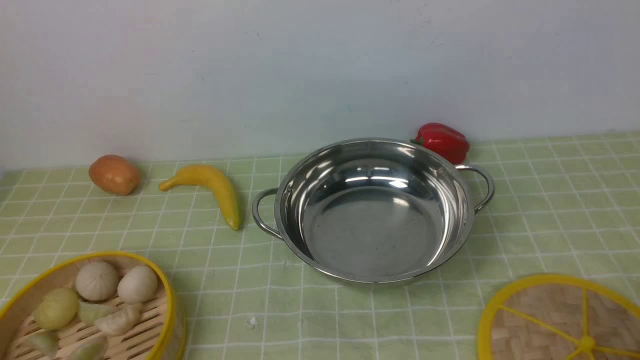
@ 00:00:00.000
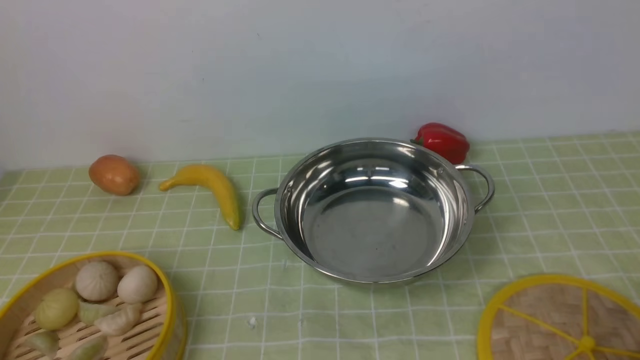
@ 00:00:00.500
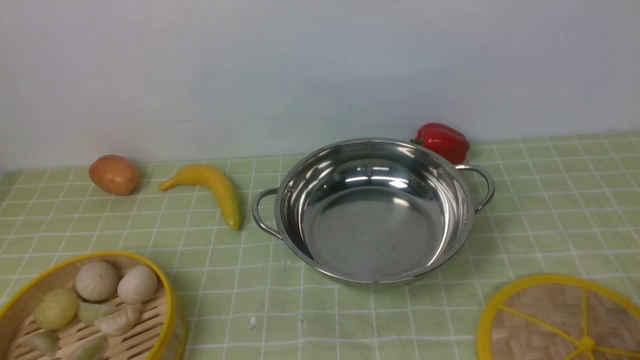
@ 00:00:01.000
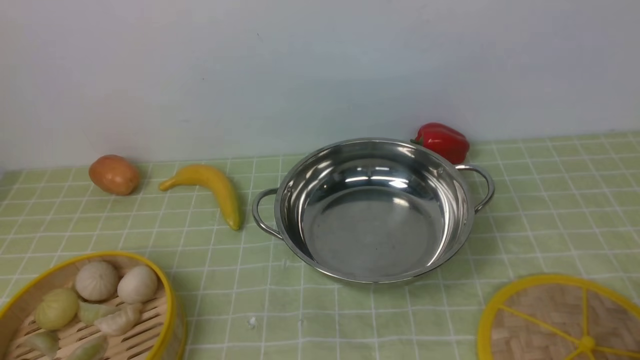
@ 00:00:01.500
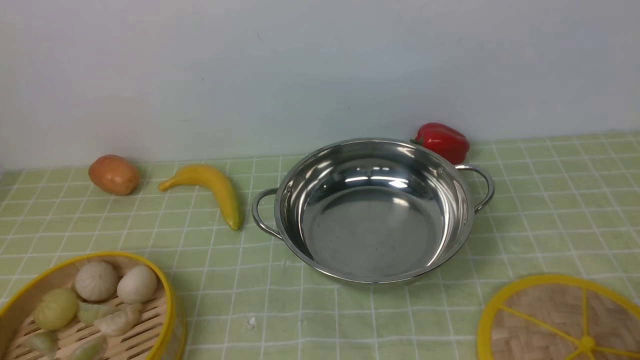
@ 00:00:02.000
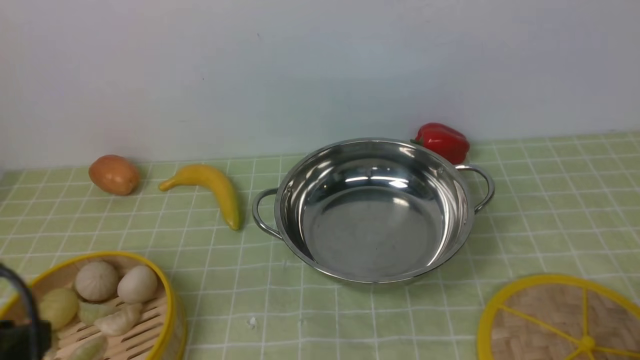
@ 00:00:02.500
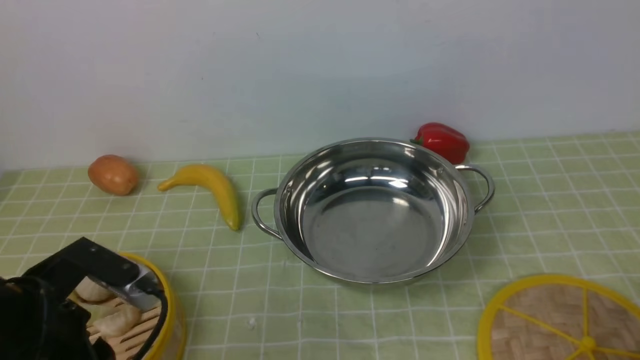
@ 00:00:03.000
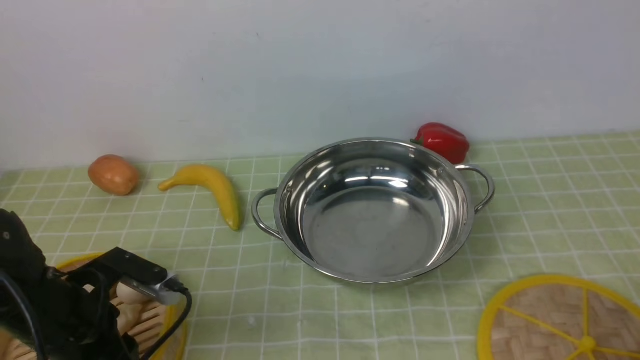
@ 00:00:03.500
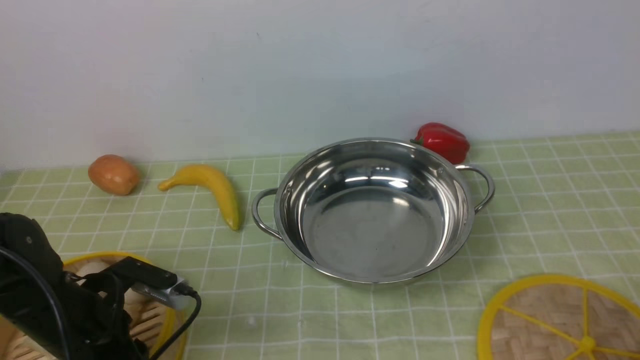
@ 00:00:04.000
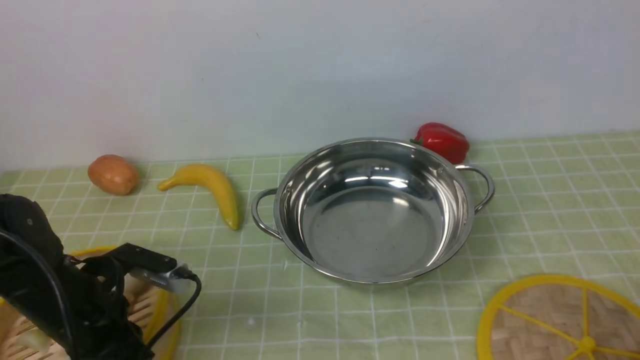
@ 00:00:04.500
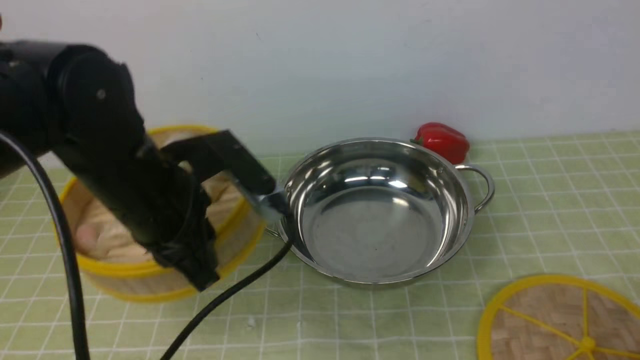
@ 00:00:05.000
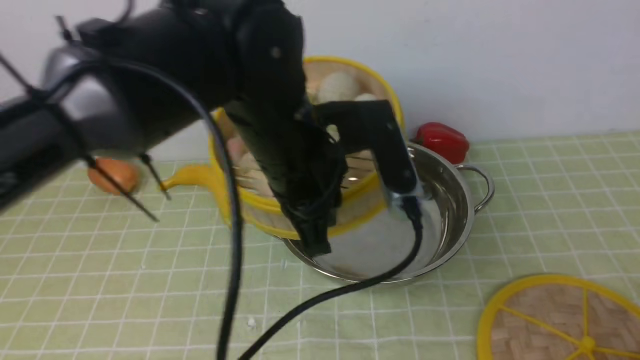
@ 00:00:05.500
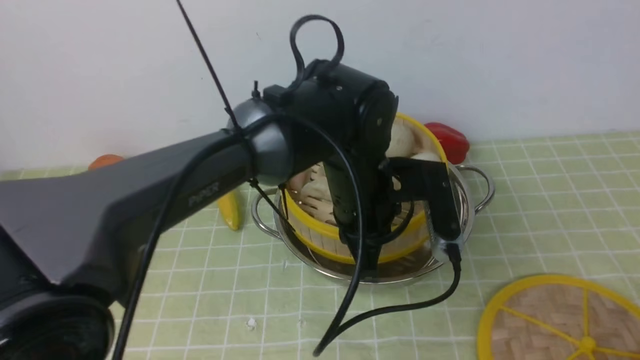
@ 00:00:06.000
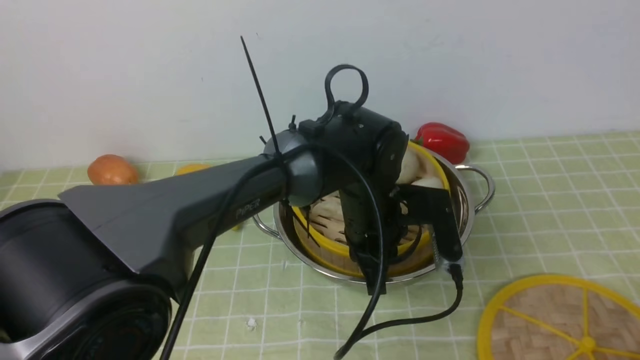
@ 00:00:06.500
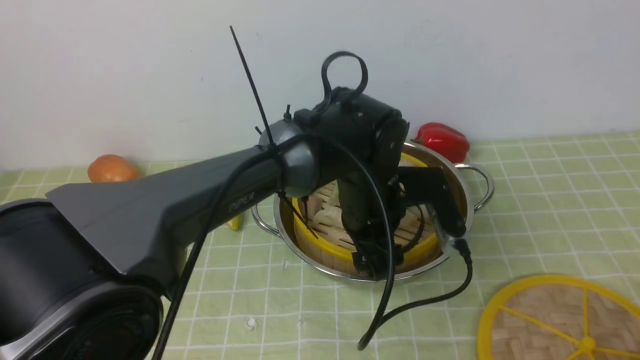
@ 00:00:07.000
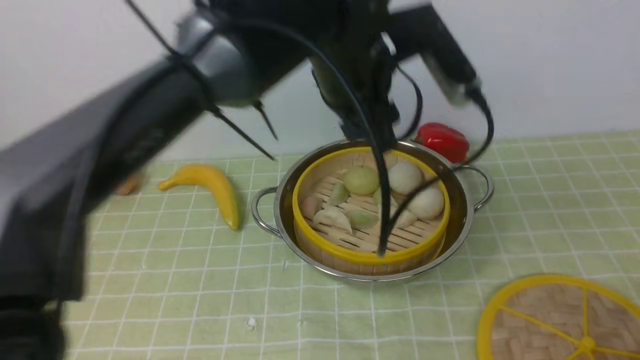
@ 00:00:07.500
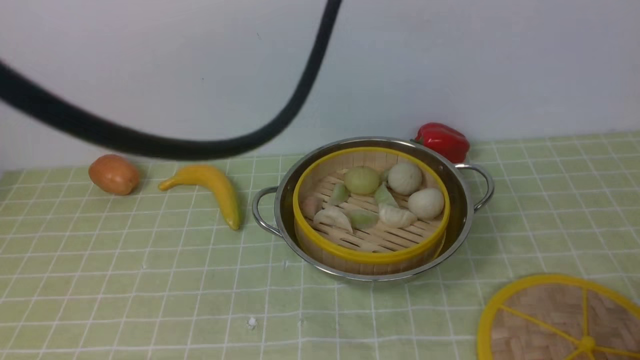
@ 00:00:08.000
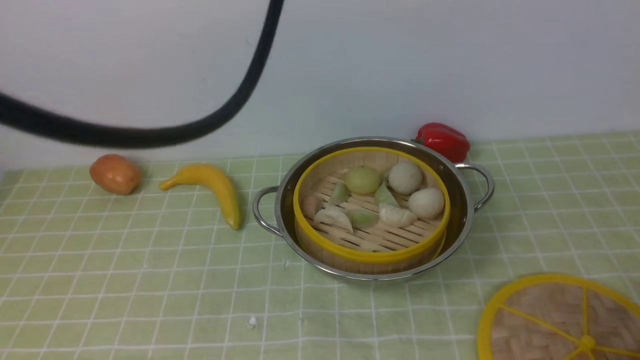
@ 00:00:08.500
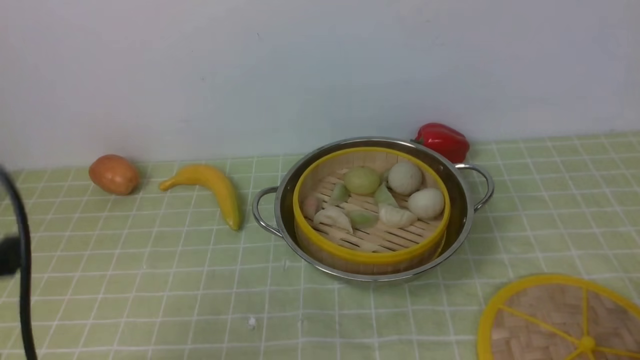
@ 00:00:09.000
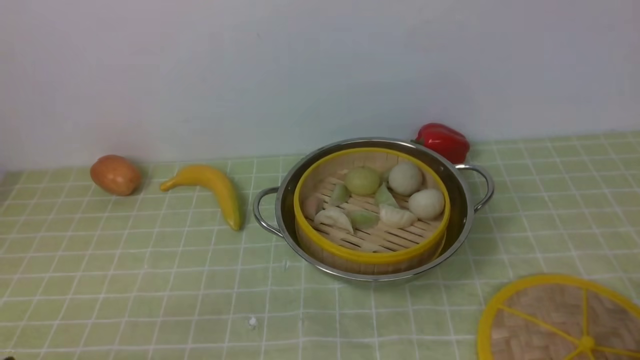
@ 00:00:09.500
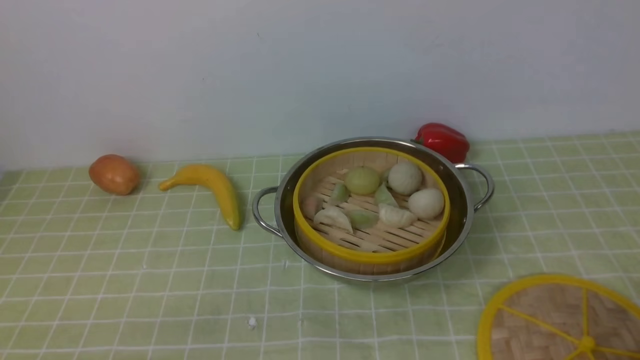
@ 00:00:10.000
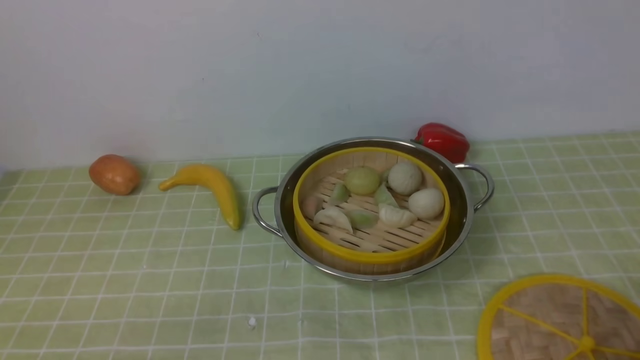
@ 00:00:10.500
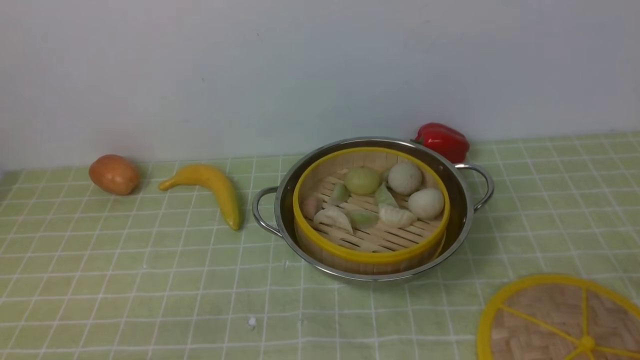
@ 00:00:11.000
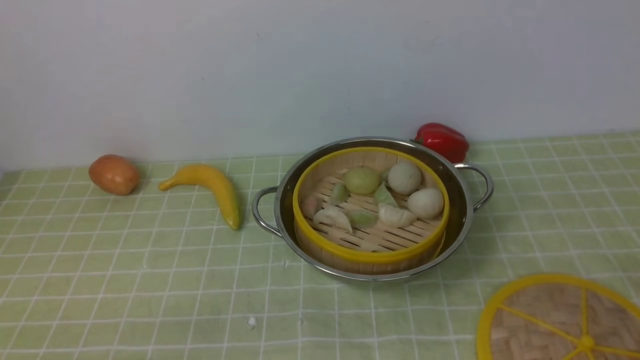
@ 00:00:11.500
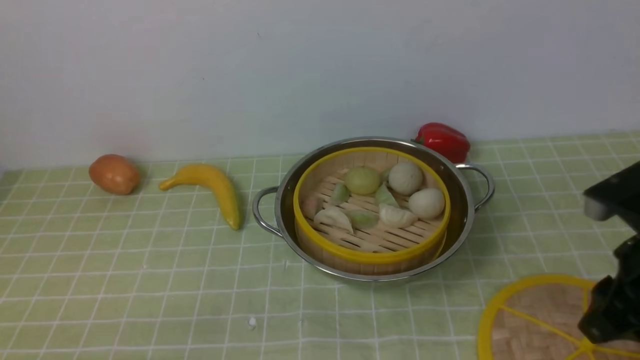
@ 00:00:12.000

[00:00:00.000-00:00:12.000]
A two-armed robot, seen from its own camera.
Task of the whole recording: place the steamer in the pot on the green tablecloth, and put the lid on the steamer.
Step, 00:00:00.000 to 00:00:04.500: use the left arm to lift the steamer closest to it.
Step, 00:00:05.000 to 00:00:07.000: use the left arm to put the steamer into the iron steamer pot in the middle.
00:00:02.000 to 00:00:04.000: The left gripper is displaced forward by approximately 20 cm.
00:00:04.000 to 00:00:06.000: The left gripper travels to the right by some 25 cm, and closes up.
00:00:06.000 to 00:00:08.000: The left gripper moves upward, roughly 25 cm, and opens, then closes again.
00:00:08.000 to 00:00:10.000: The left gripper heads downward, backward and to the left, covering roughly 40 cm.
00:00:10.000 to 00:00:12.000: The right gripper moves forward and upward, about 15 cm.

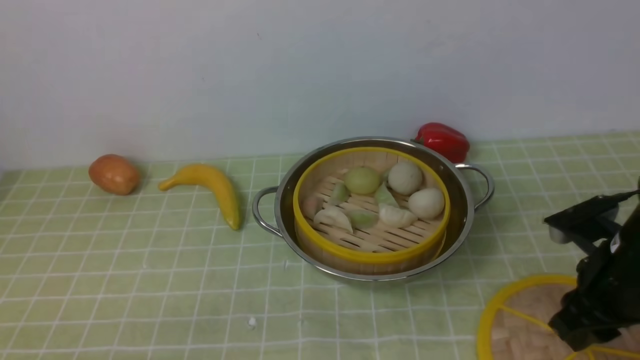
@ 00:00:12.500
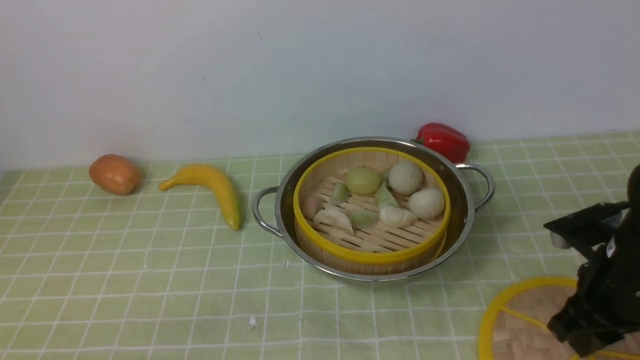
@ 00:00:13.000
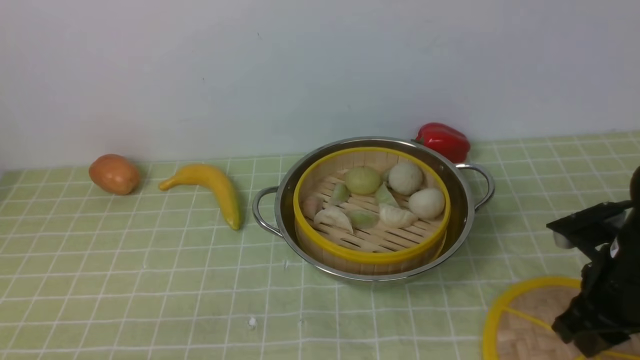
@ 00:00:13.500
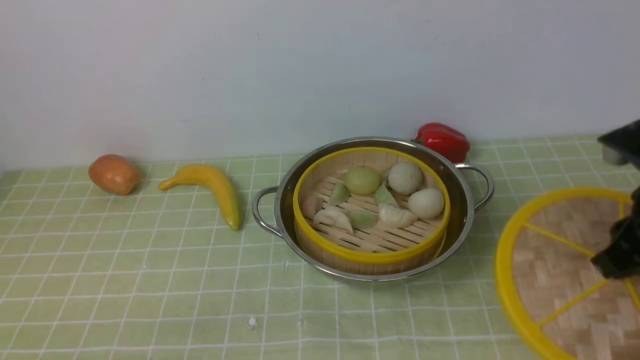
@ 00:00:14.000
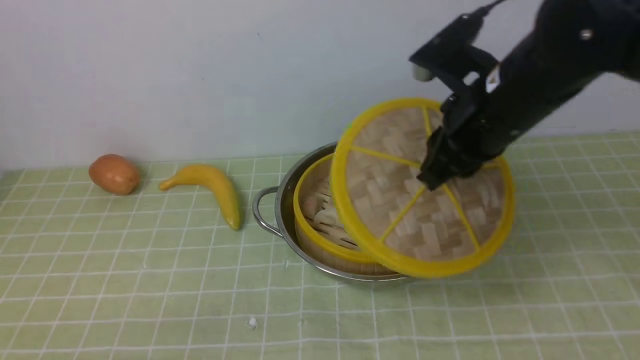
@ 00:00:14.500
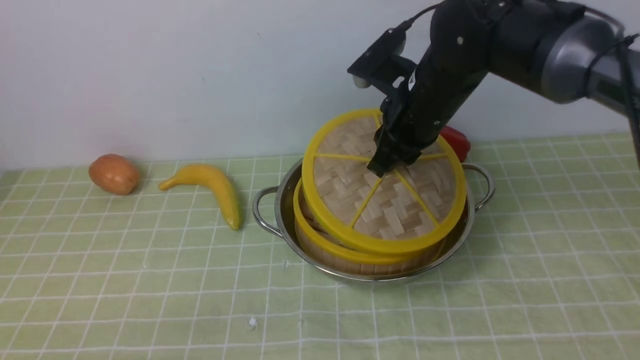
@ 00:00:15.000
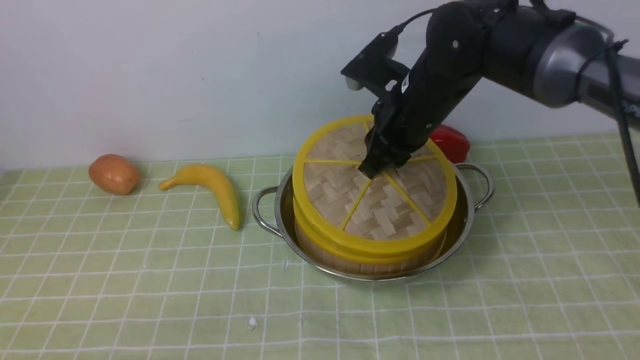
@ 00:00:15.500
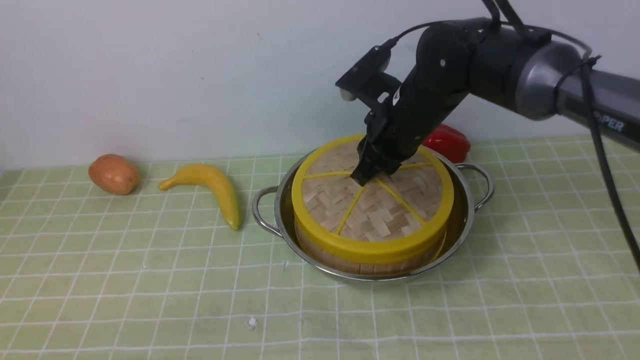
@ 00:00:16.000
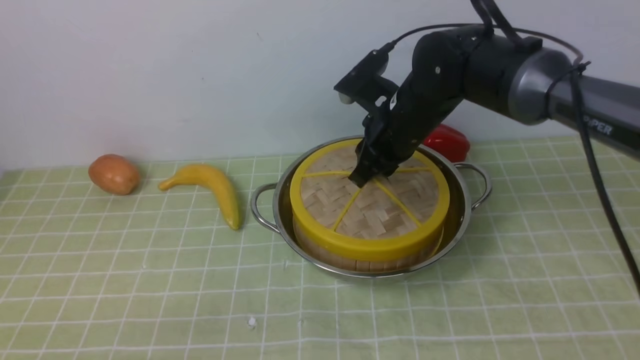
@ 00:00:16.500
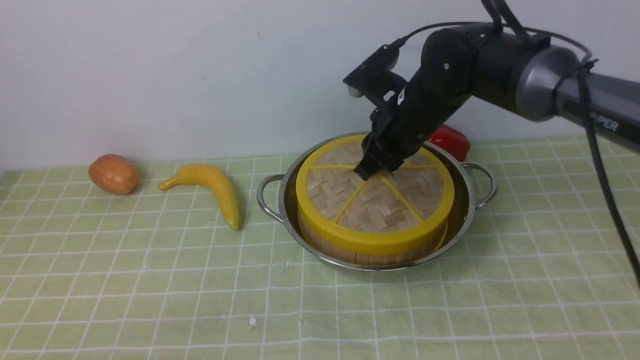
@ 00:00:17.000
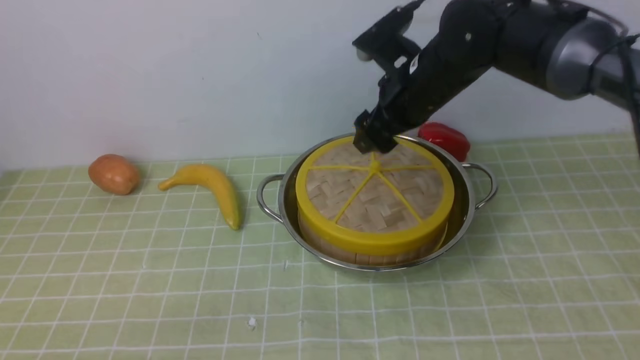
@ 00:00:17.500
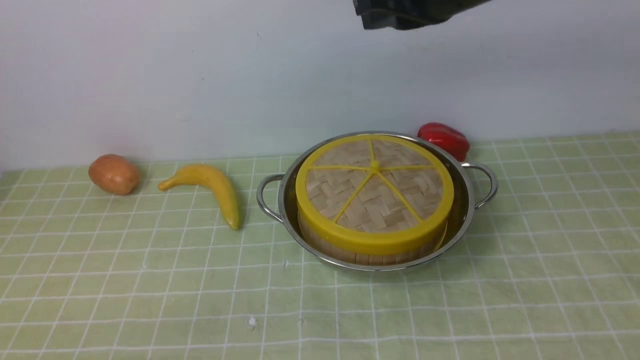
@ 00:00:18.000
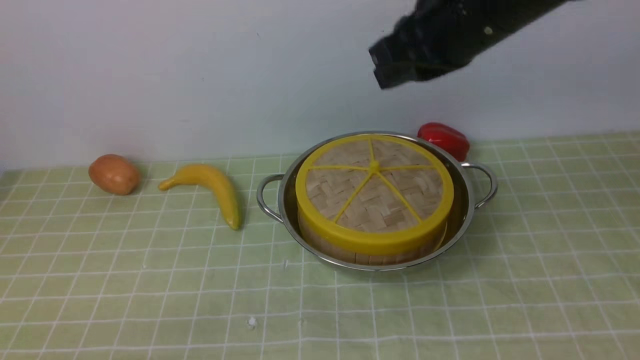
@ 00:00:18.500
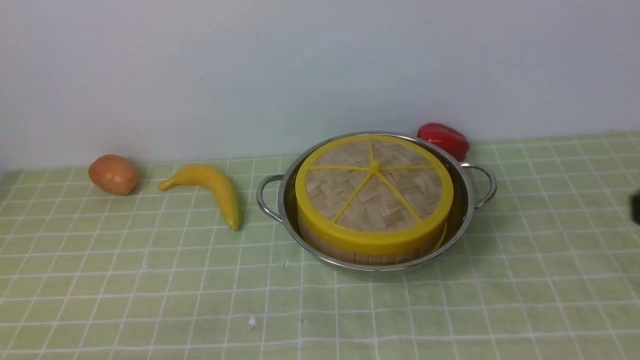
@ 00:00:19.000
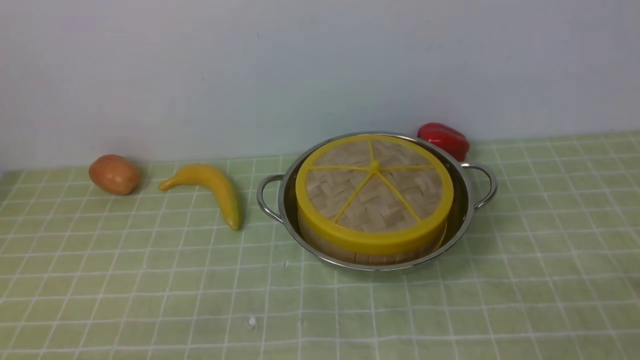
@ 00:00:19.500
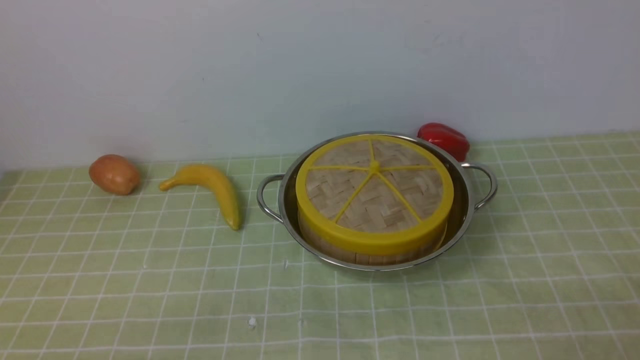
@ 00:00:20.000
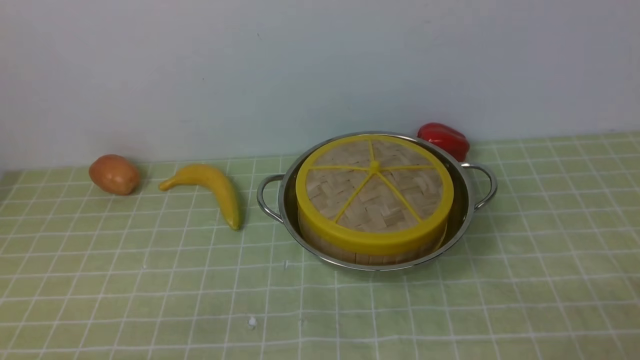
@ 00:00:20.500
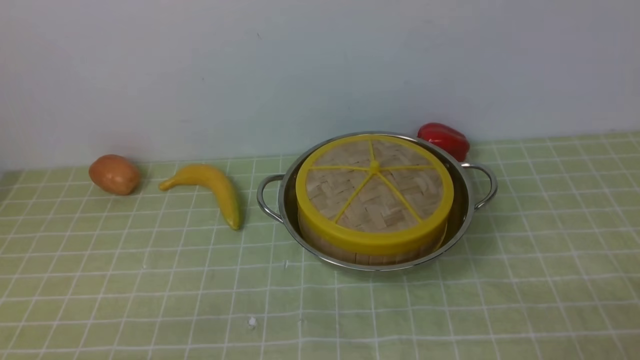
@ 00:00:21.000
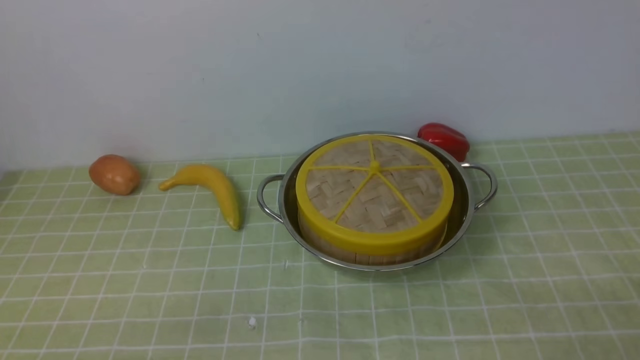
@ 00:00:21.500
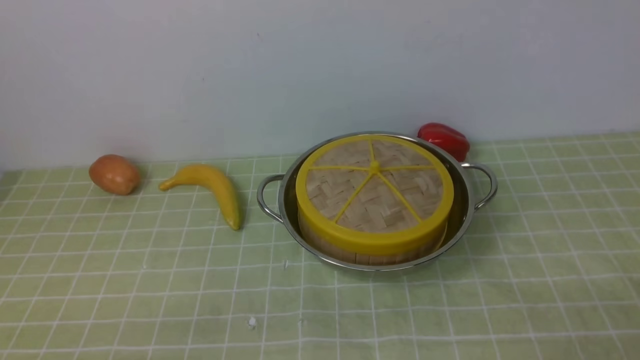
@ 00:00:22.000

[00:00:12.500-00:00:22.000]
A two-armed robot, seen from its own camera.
Task of the whole recording: place the steamer in the pot on the green tablecloth, and put the lid on the steamer.
Step, 00:00:14.500 to 00:00:18.000: use the right arm to place the steamer lid on the steamer.
00:00:12.500 to 00:00:14.500: The right gripper heads upward, to the left and forward, covering approximately 15 cm.
00:00:14.500 to 00:00:16.500: The right gripper goes some 15 cm forward, to the left and downward.
00:00:16.500 to 00:00:18.000: The right gripper travels upward by approximately 15 cm, and opens and closes again.
00:00:18.000 to 00:00:20.000: The right gripper travels backward, downward and to the right by some 40 cm.
00:00:20.000 to 00:00:22.000: Neither gripper changes place.
